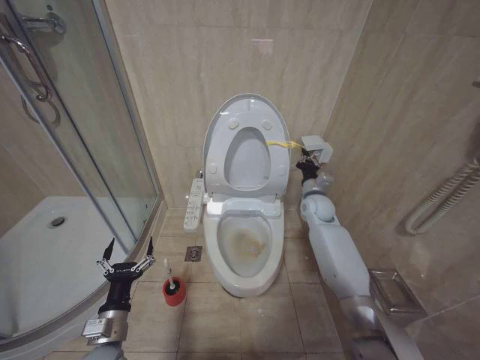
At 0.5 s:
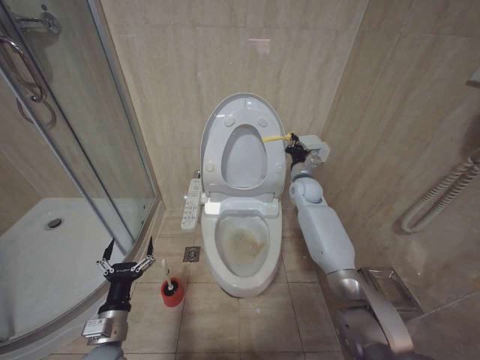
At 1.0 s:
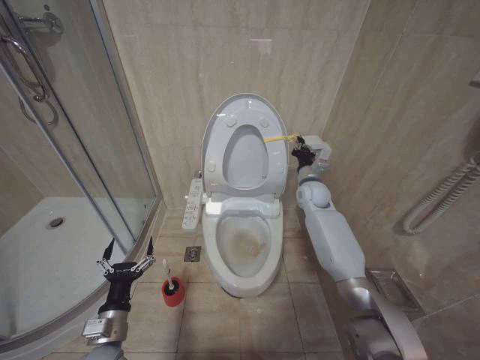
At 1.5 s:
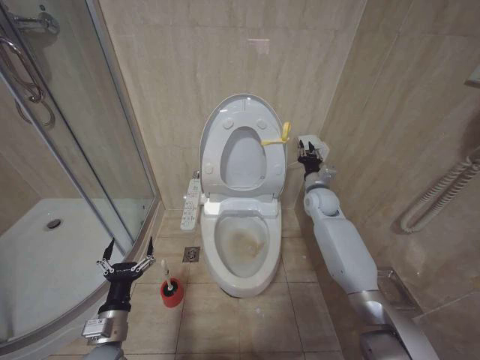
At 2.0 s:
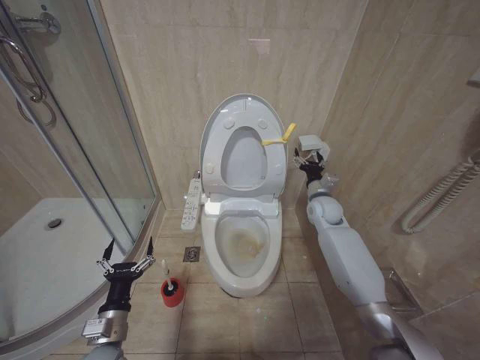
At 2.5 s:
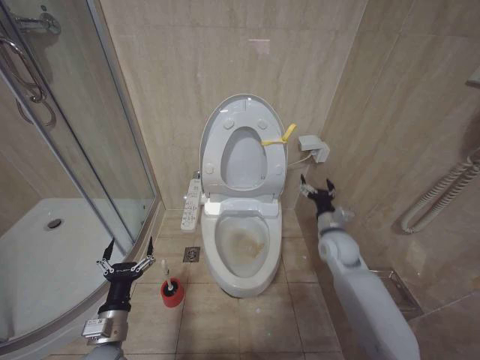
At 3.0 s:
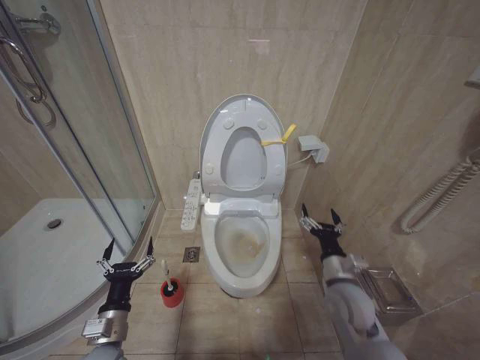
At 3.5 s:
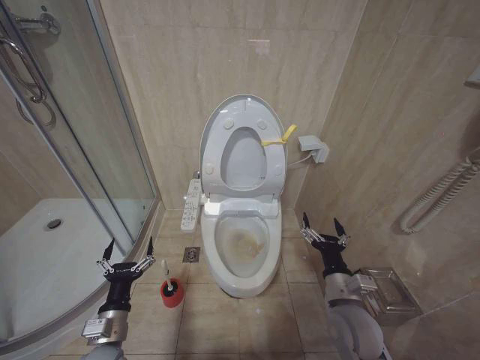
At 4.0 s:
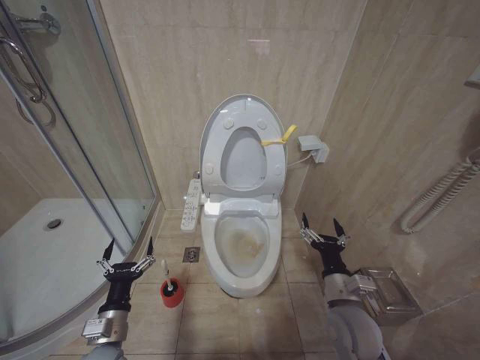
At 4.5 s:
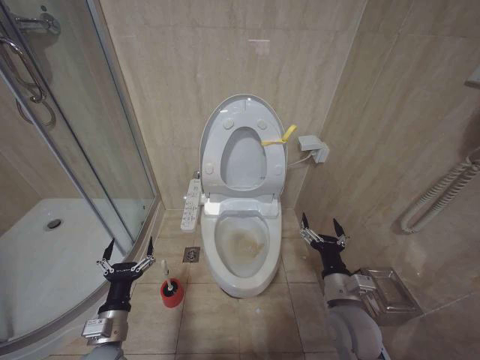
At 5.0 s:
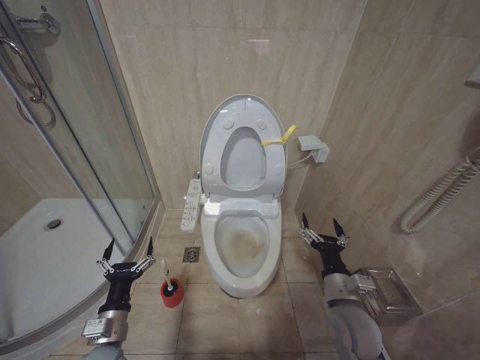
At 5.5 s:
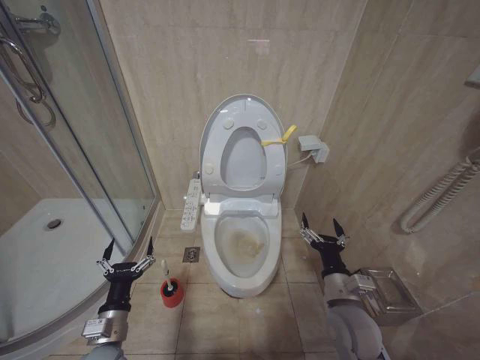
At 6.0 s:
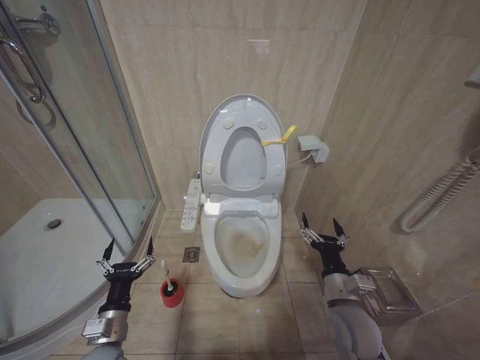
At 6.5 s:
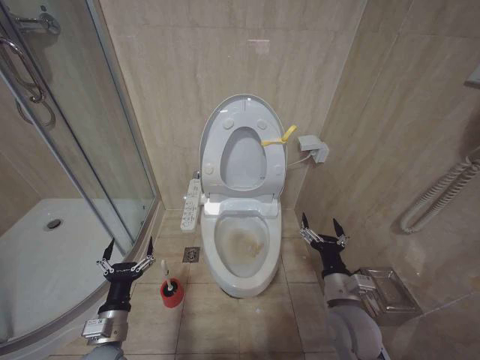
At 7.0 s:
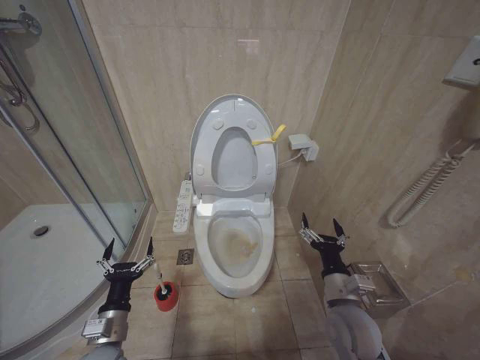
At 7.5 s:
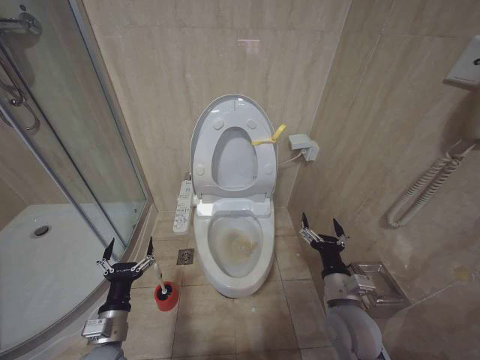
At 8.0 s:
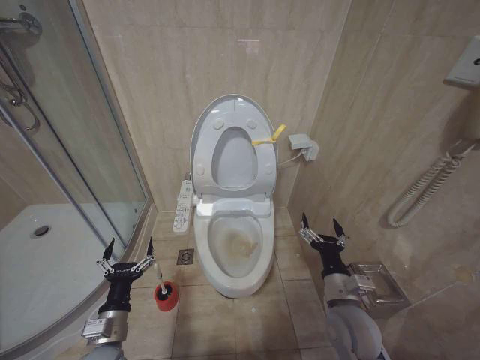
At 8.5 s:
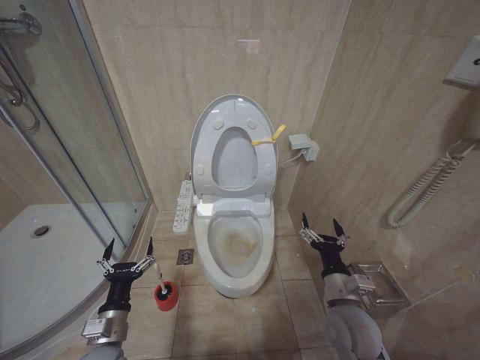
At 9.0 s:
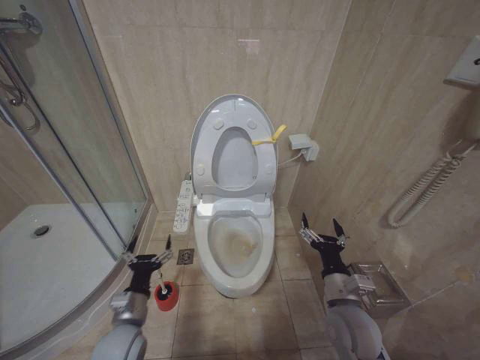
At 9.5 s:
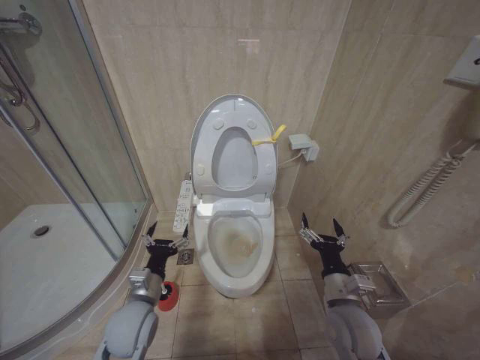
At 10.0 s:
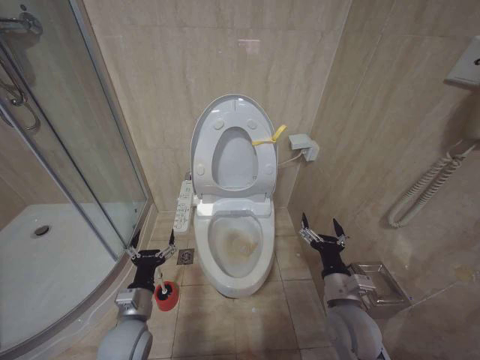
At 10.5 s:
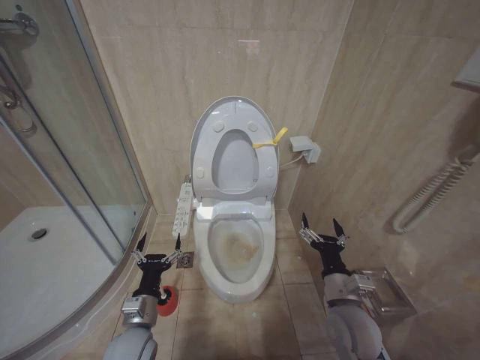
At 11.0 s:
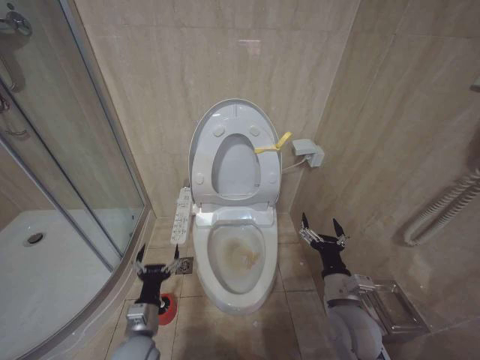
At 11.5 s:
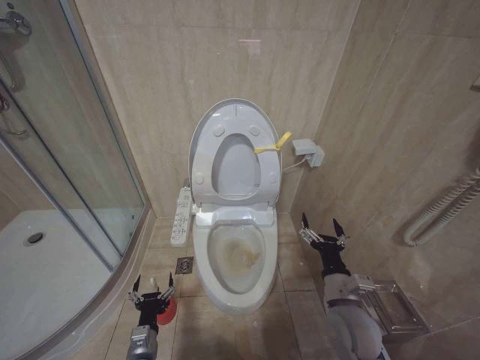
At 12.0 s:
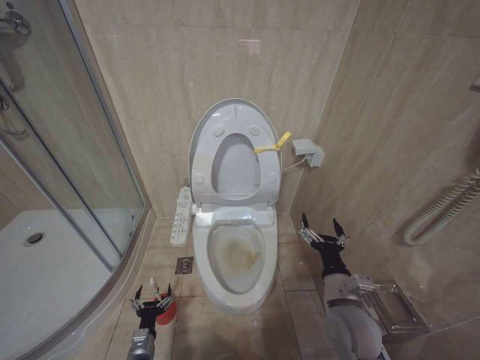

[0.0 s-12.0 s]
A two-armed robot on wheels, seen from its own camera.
Task of the whole recording: Open the toilet lid, clean the toilet bowl with a toilet brush, close the toilet lid, and flush.
0.0 to 2.0 s: The right gripper opens its fingers.
2.0 to 4.0 s: The right gripper travels backward by about 30 cm.
4.0 to 8.0 s: Neither gripper changes place.
10.0 to 12.0 s: The left gripper travels downward by approximately 20 cm.

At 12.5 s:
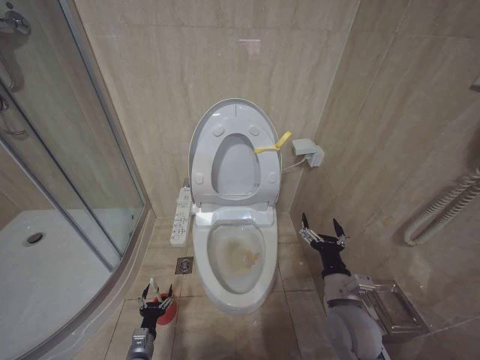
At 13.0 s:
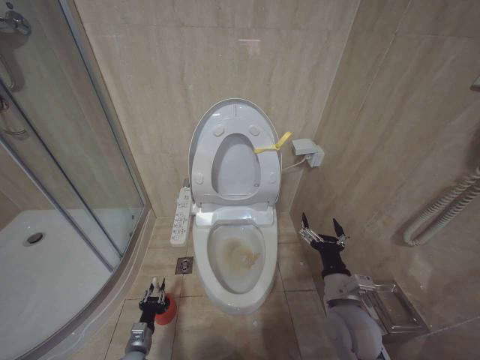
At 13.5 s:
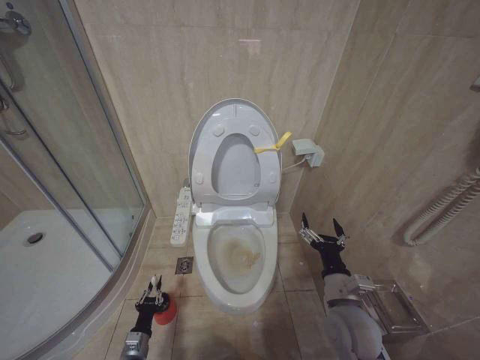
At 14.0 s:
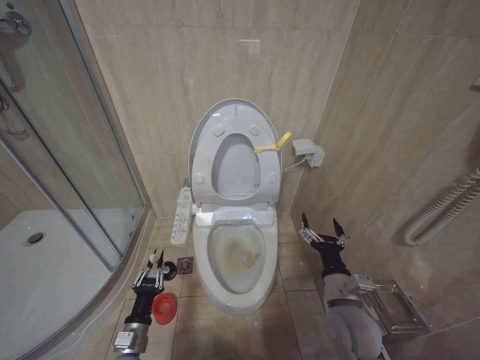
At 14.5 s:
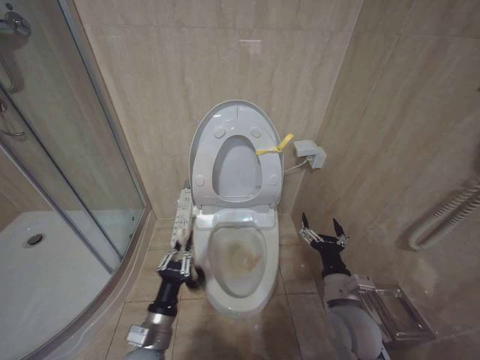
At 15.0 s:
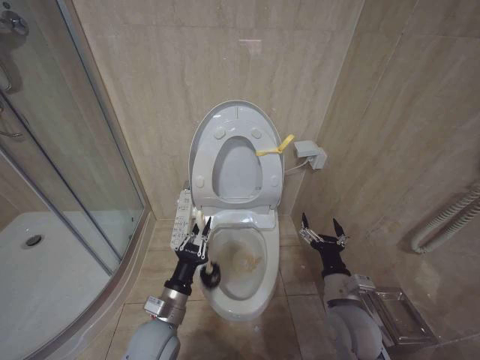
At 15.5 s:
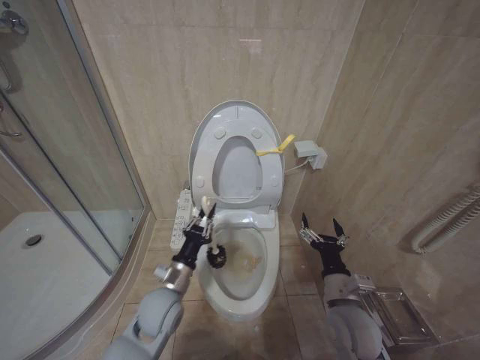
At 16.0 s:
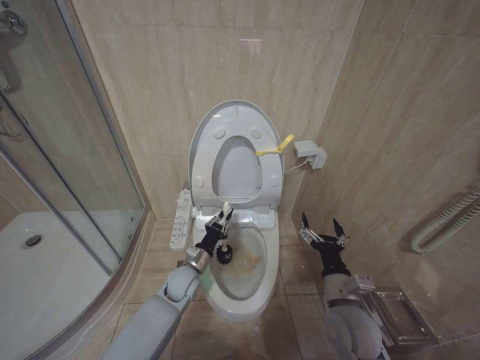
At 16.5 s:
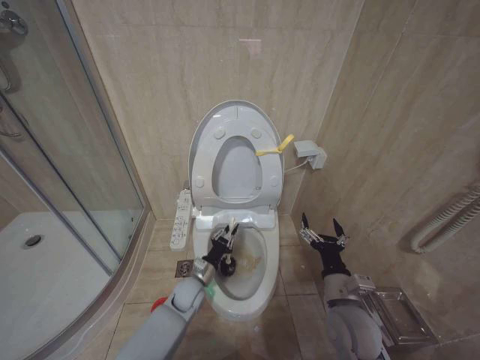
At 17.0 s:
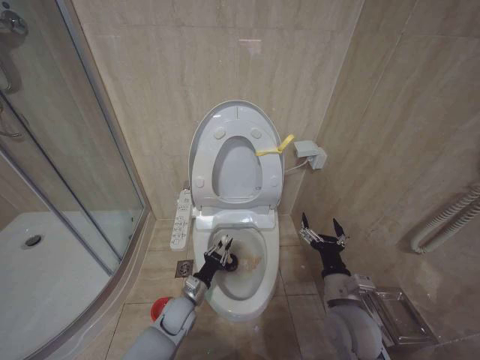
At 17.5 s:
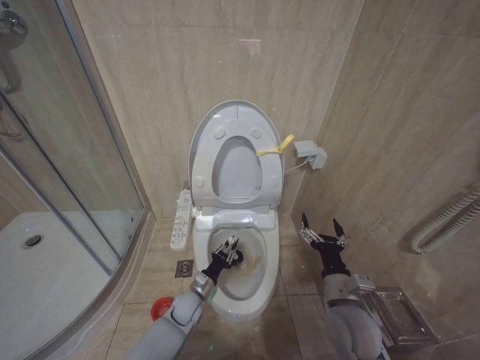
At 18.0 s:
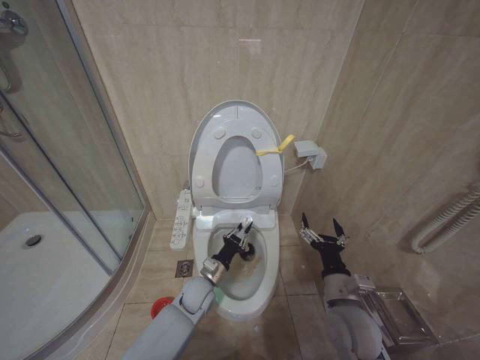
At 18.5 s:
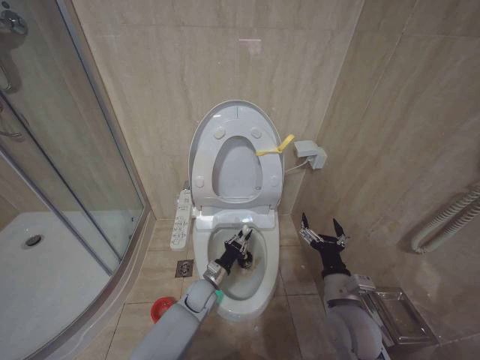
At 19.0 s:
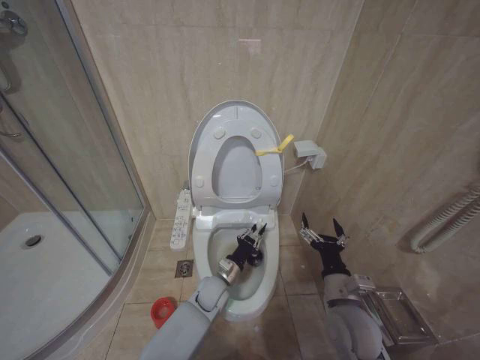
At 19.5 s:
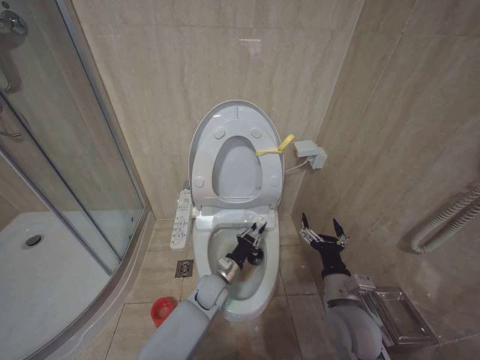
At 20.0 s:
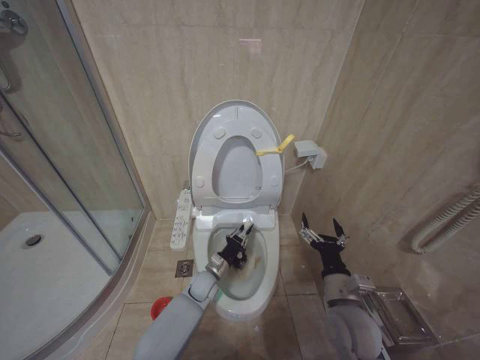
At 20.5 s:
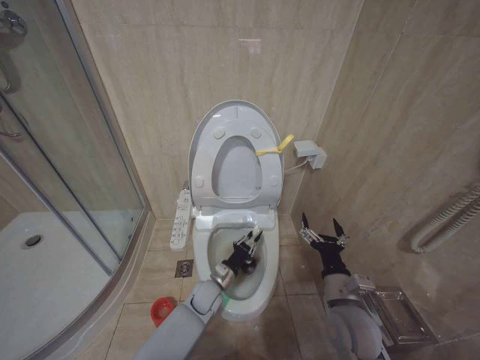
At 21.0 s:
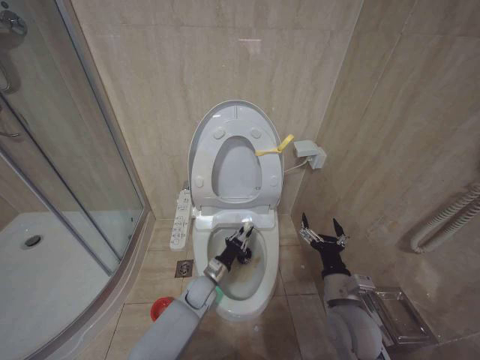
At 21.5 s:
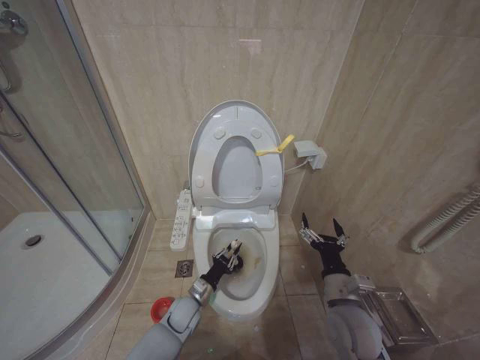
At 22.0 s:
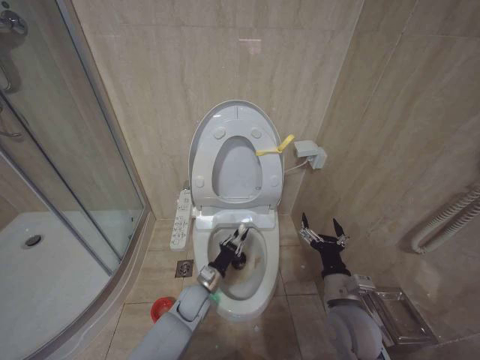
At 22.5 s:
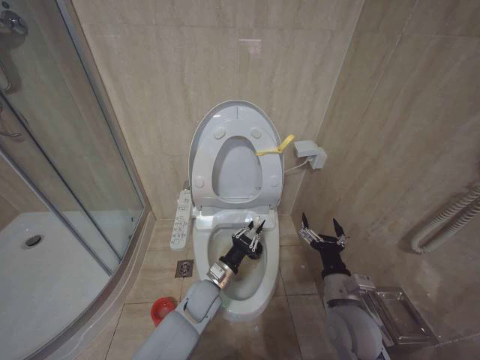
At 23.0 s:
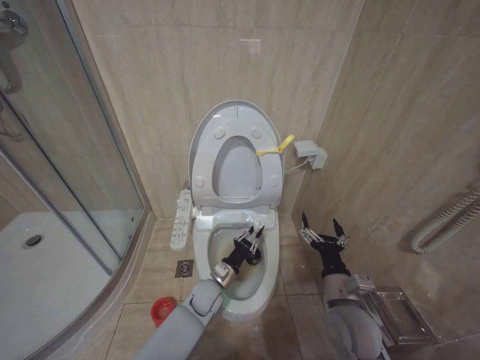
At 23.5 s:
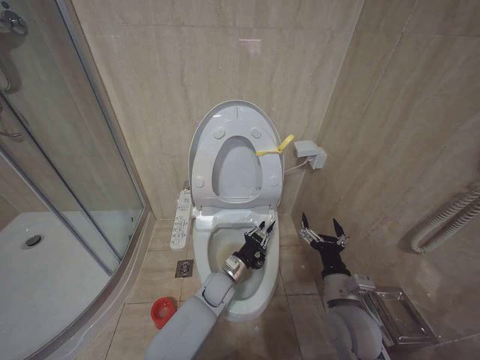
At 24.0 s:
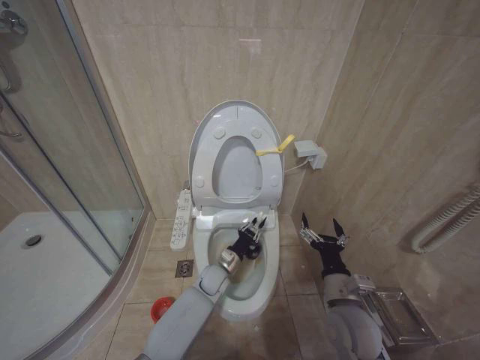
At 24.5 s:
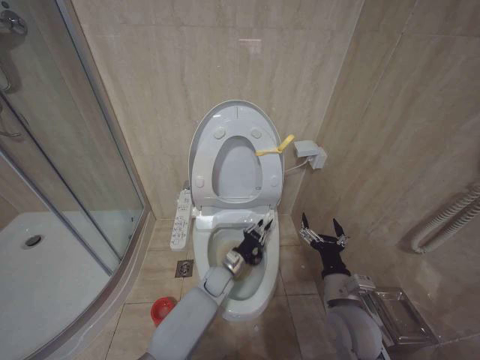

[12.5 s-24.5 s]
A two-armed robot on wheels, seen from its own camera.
Task of the whole recording: Open the toilet lid, clean the toilet bowl with a toilet brush, close the toilet lid, and flush.
12.5 to 14.5 s: The left gripper moves upward, roughly 25 cm, and closes up.
14.5 to 16.5 s: The left gripper travels forward by roughly 20 cm.
18.5 to 20.5 s: The grippers make only small movements.
20.5 to 22.5 s: The left gripper heads upward, covering approximately 5 cm.
22.5 to 24.5 s: The left gripper travels forward and downward by roughly 10 cm.

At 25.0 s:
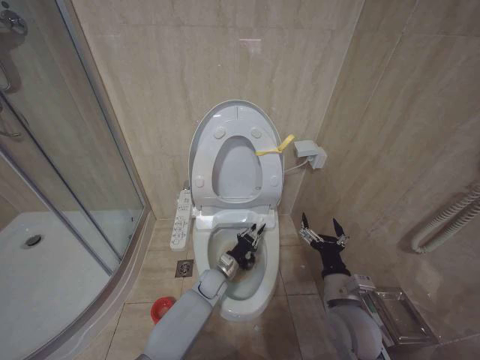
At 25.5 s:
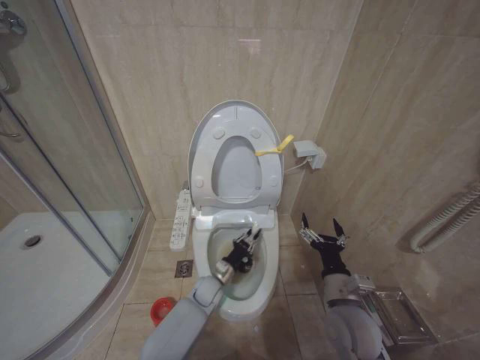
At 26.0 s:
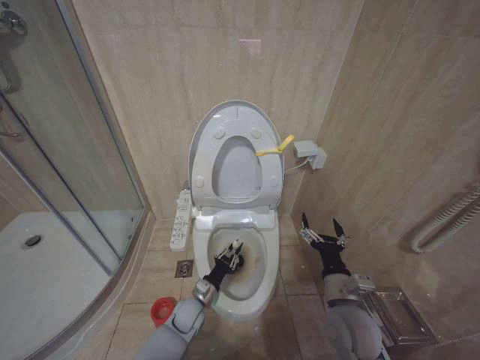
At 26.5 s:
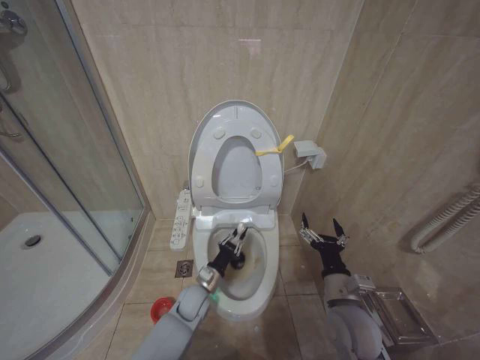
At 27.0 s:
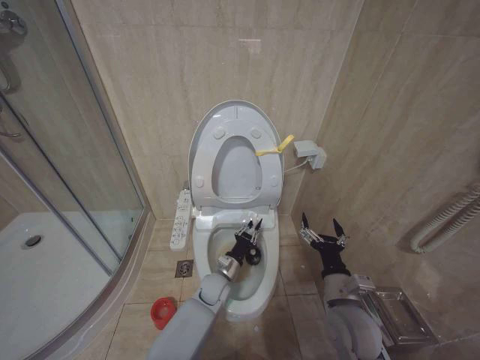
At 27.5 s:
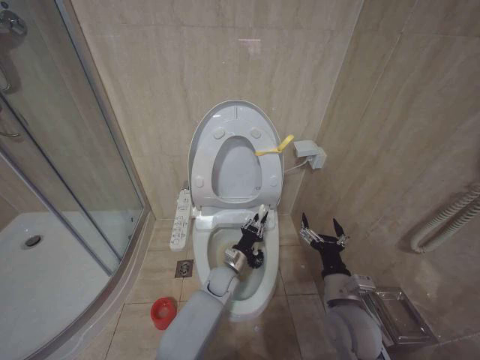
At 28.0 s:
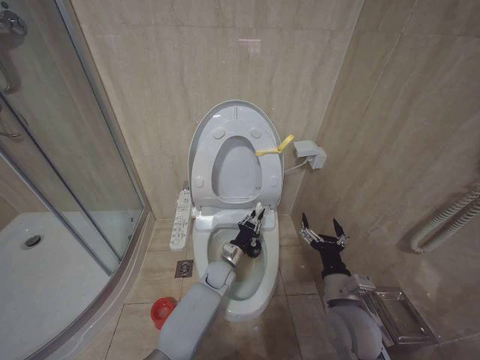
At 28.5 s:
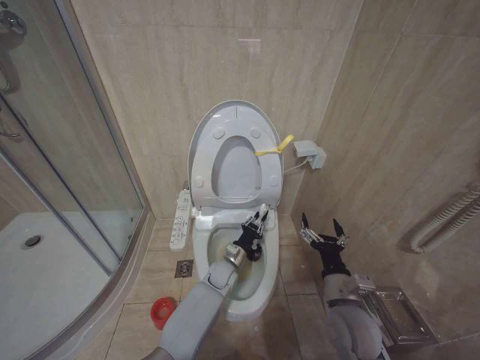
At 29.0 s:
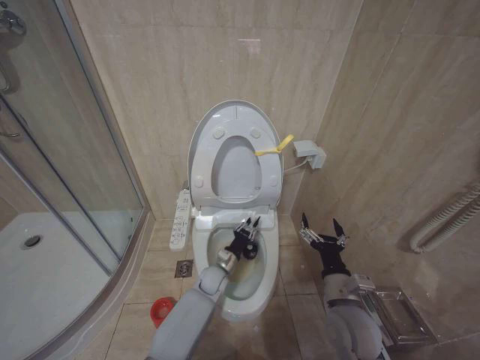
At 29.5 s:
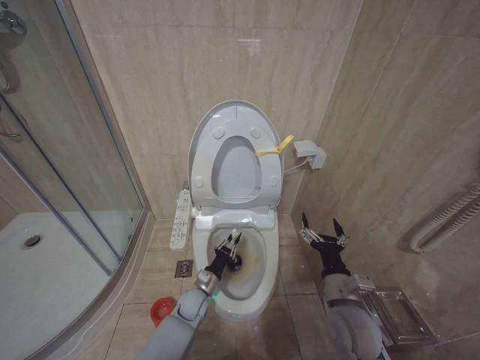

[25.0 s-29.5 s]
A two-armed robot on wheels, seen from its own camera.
Task of the whole recording: Open the toilet lid, clean the toilet bowl with a toilet brush, close the toilet lid, and flush.
25.0 to 27.0 s: The left gripper goes to the left and returns, some 10 cm each way.
27.0 to 29.5 s: The left gripper goes about 10 cm to the left and downward.
